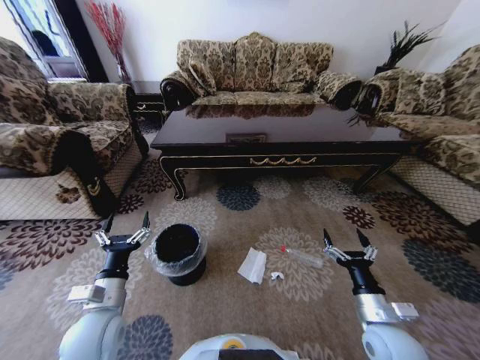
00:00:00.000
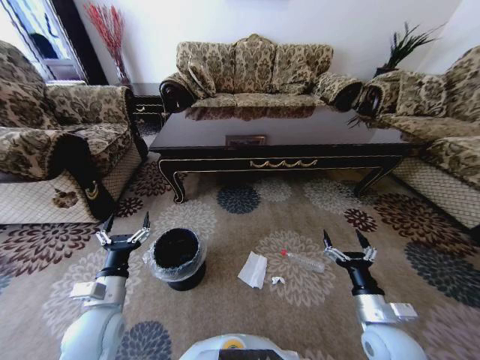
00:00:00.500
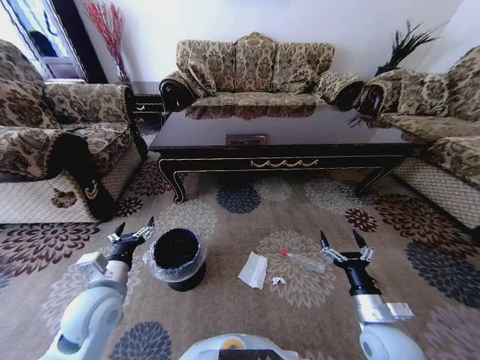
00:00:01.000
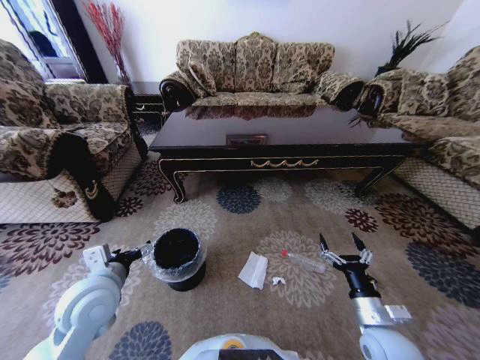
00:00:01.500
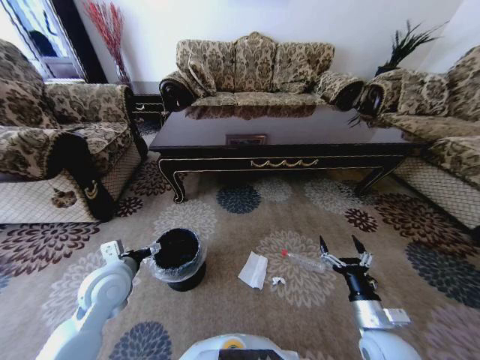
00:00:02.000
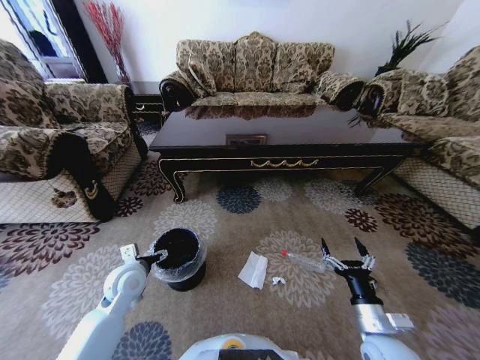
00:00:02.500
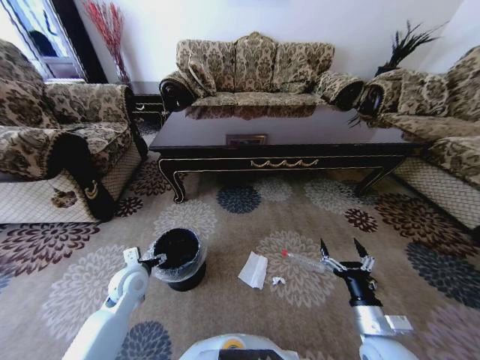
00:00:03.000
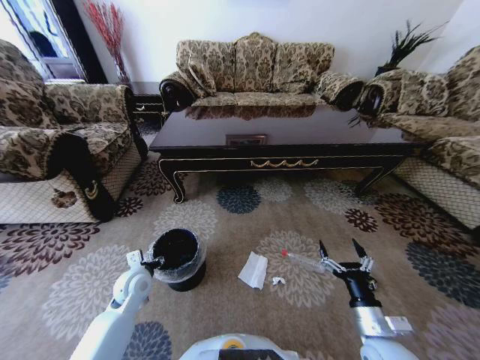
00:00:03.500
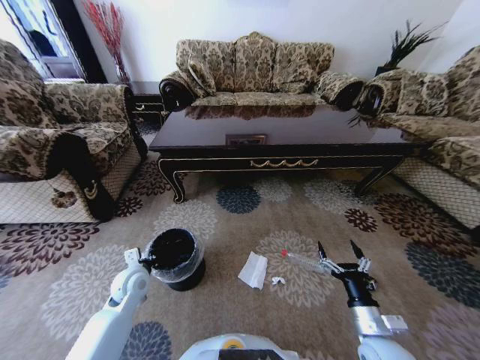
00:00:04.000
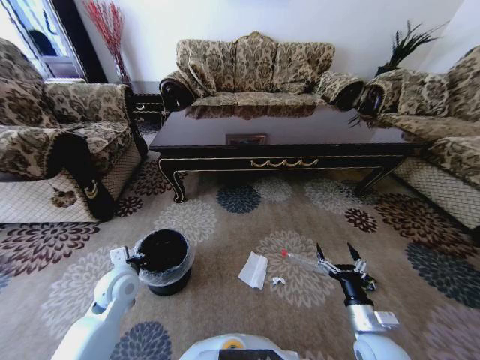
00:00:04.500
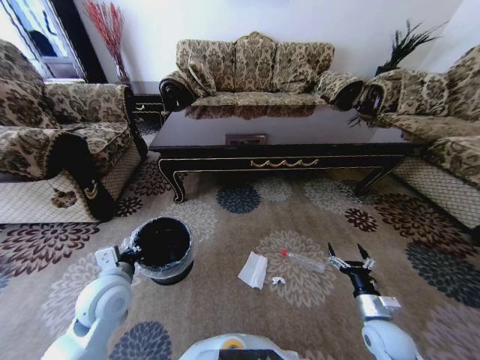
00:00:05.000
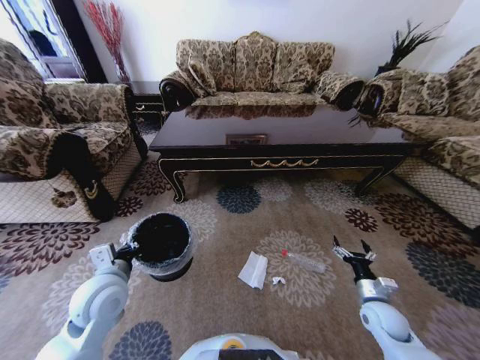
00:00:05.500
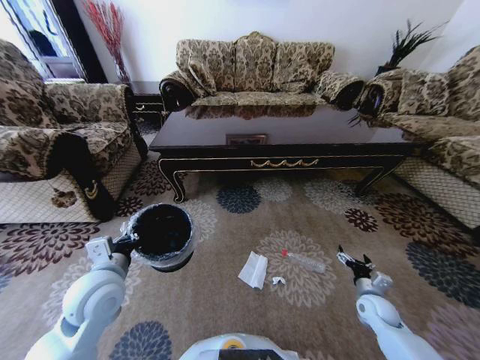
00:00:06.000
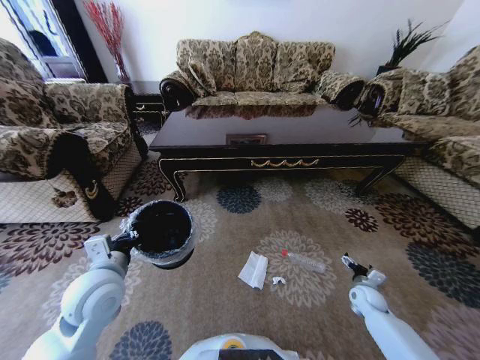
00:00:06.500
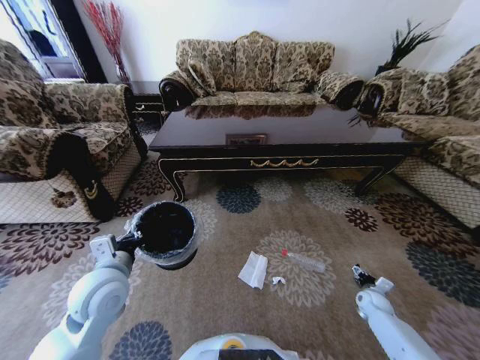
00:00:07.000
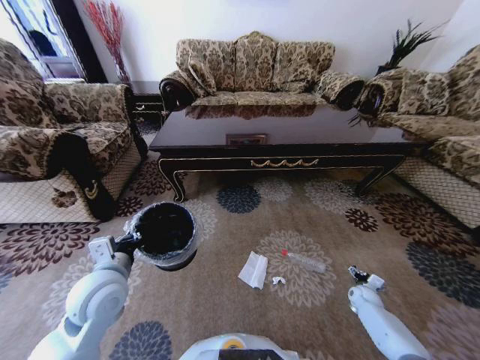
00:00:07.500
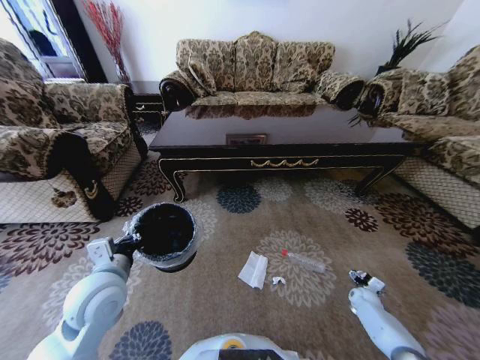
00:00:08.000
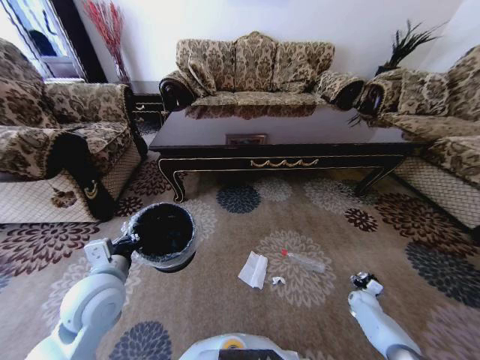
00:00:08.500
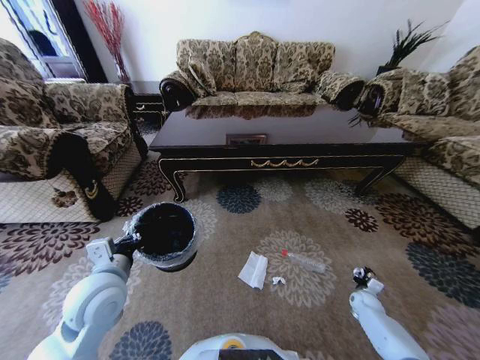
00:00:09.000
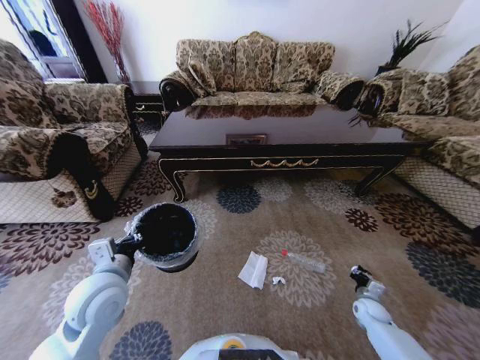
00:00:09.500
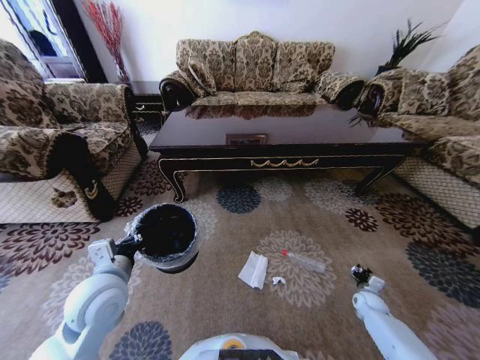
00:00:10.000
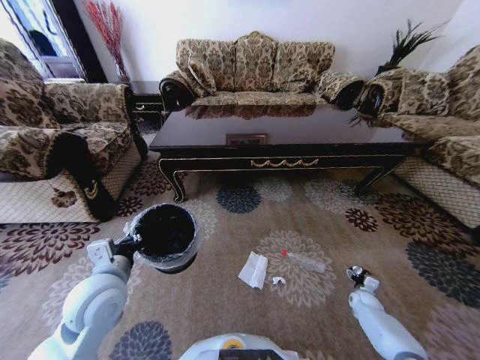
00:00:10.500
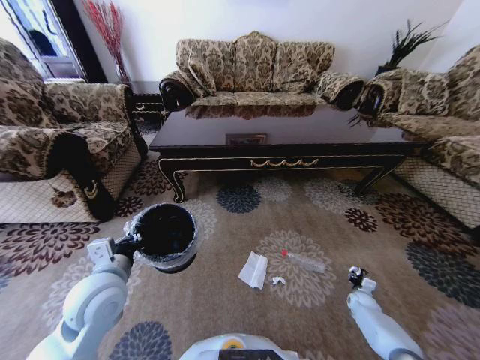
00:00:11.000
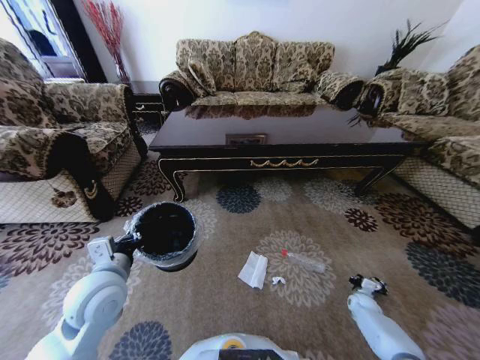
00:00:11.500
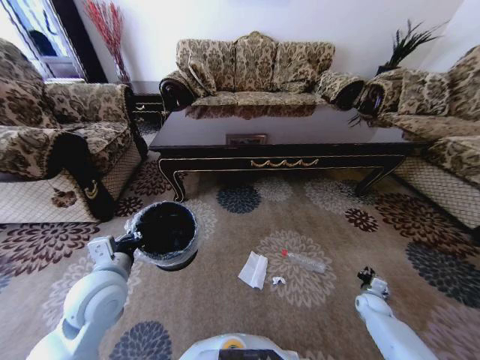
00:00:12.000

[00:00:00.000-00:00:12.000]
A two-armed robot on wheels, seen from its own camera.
Task of the whole recording: Move to the front of the table and pick up the trash from the floor, then place it into the trash bin.
00:00:00.000 to 00:00:02.000: The left gripper is displaced forward by roughly 10 cm.
00:00:02.000 to 00:00:04.000: The left gripper is displaced downward by about 10 cm, and closes.
00:00:04.000 to 00:00:06.000: The right gripper is displaced to the right, forward and downward by approximately 20 cm. Meanwhile the left gripper goes some 15 cm upward and backward.
00:00:06.000 to 00:00:08.000: The right gripper travels downward, to the right and forward by some 15 cm.
00:00:08.000 to 00:00:10.000: The right gripper closes.
00:00:10.000 to 00:00:12.000: The right gripper opens and closes again.

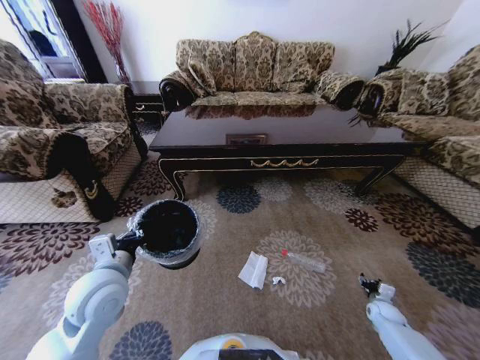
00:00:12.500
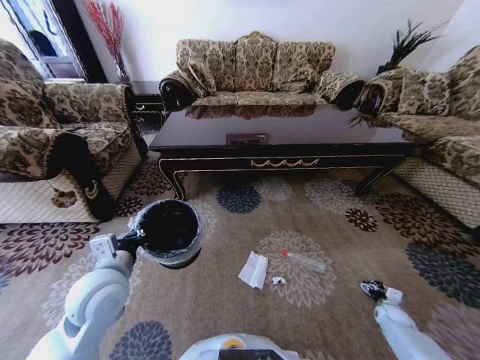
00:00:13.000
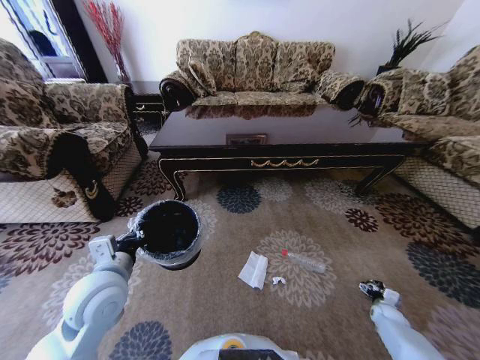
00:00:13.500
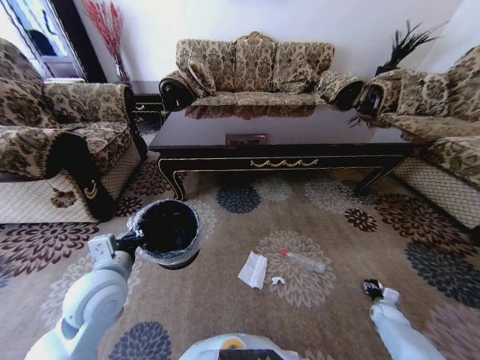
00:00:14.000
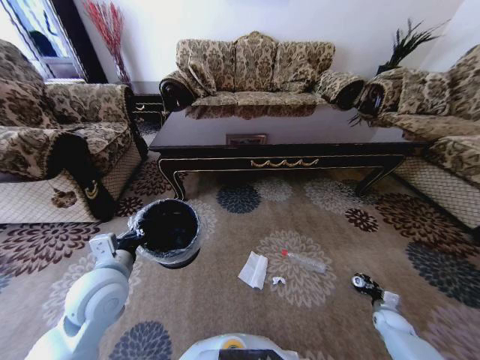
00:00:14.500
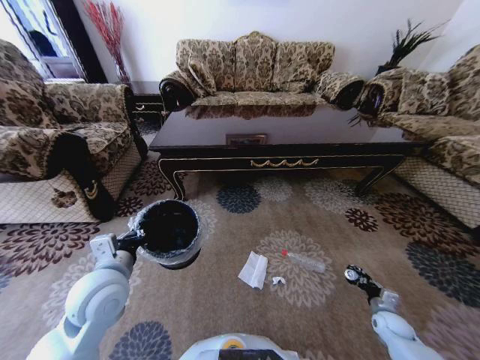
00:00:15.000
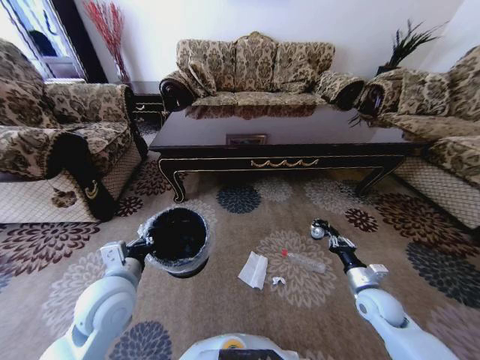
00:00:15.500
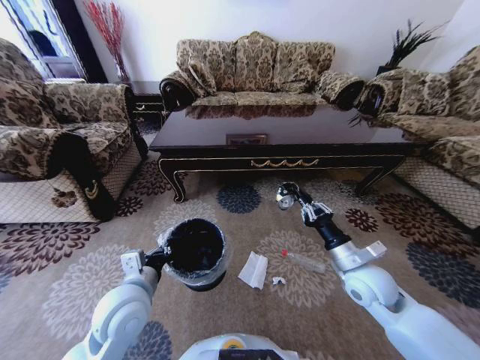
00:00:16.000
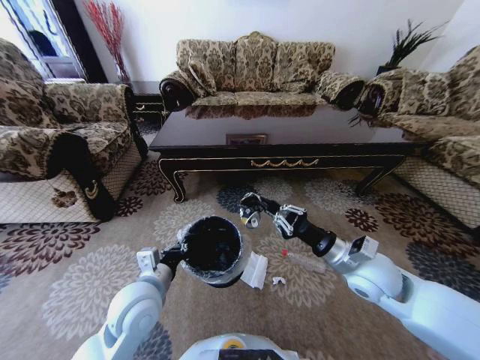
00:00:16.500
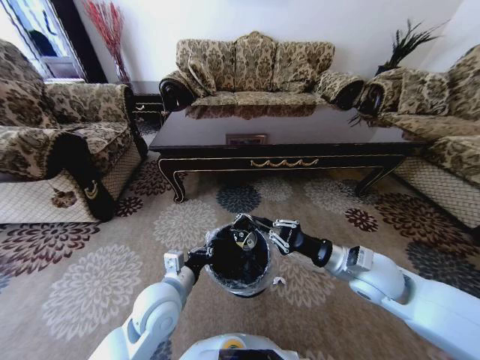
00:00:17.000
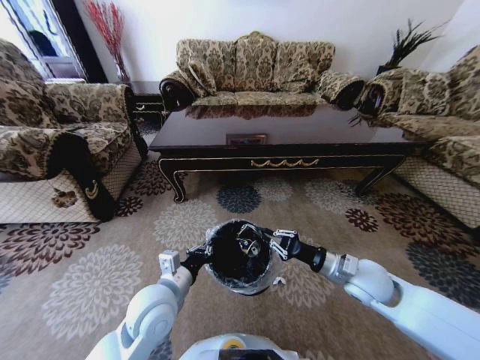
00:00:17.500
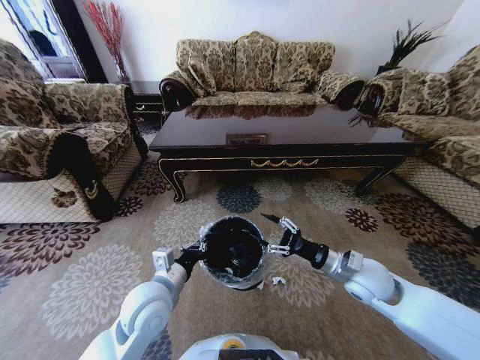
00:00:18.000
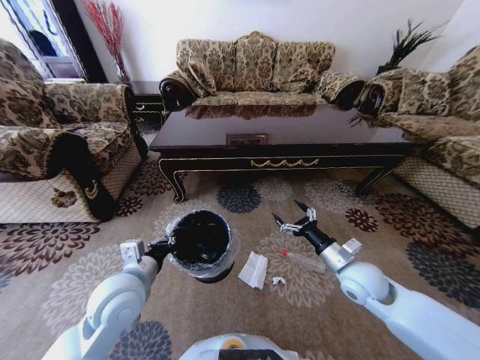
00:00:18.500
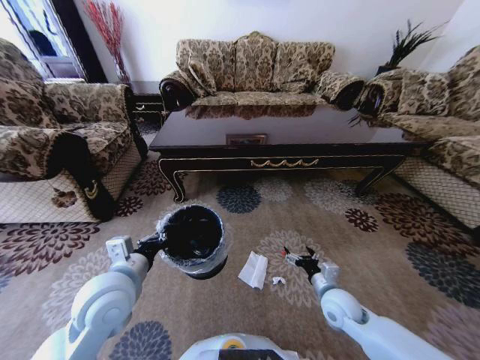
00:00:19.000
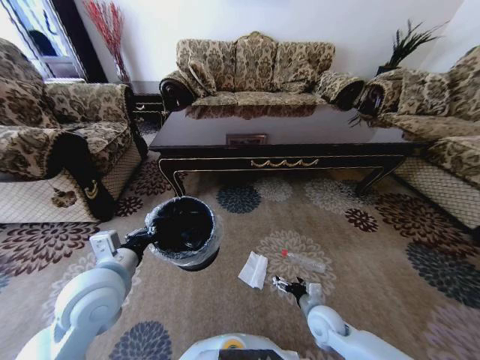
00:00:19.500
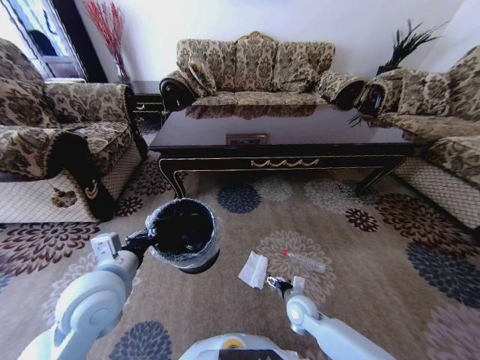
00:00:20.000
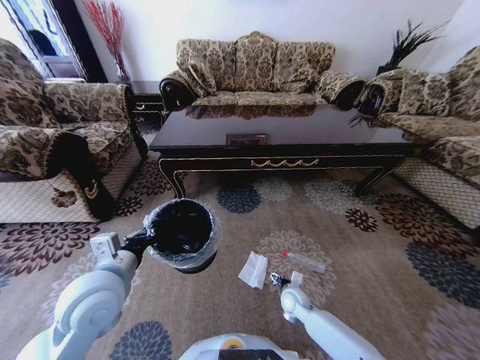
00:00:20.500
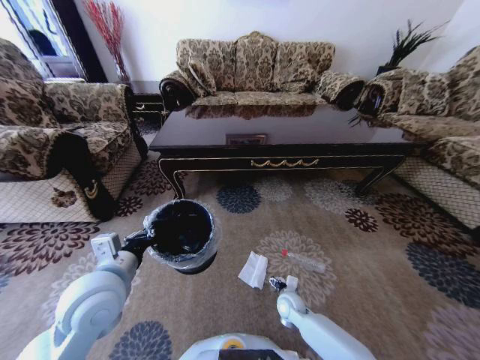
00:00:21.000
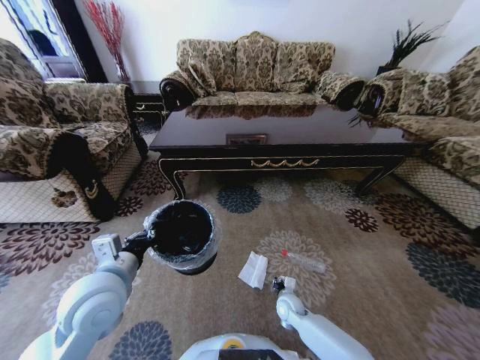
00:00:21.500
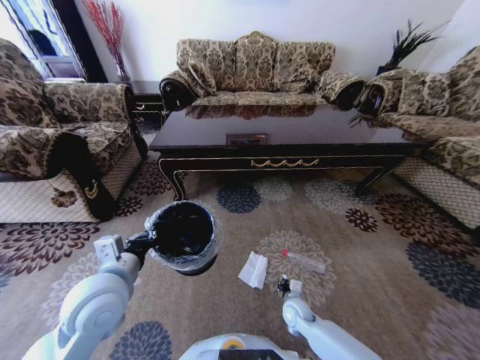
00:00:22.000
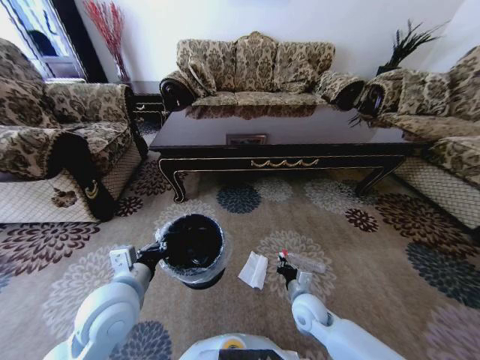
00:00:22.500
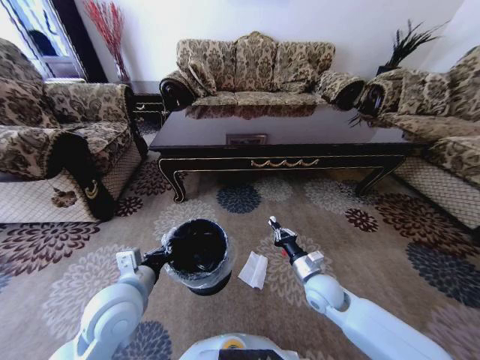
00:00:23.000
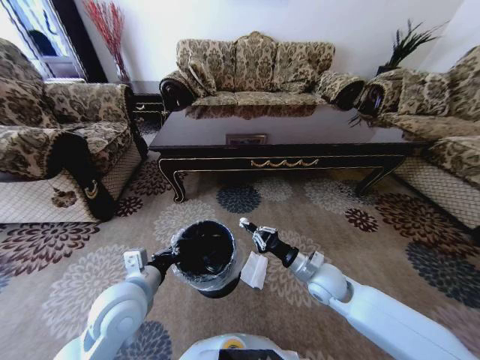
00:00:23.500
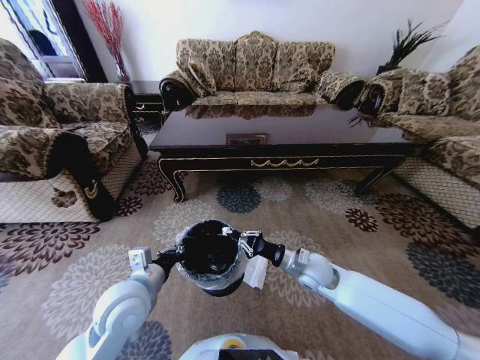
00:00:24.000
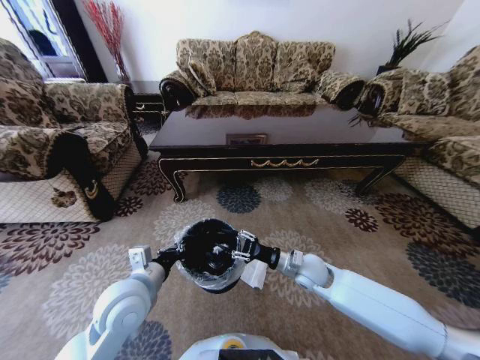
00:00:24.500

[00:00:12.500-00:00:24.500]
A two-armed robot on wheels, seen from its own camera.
Task of the whole recording: Move to the front of the table and pick up the trash from the floor, then place it into the trash bin.
00:00:12.500 to 00:00:14.500: The right gripper closes.
00:00:14.500 to 00:00:16.500: The left gripper travels to the right by roughly 5 cm. The right gripper shifts about 50 cm upward and to the left.
00:00:16.500 to 00:00:18.500: The right gripper is displaced downward by about 5 cm, and opens up.
00:00:18.500 to 00:00:20.500: The right gripper shifts approximately 25 cm downward and to the left.
00:00:20.500 to 00:00:22.500: The right gripper travels upward by roughly 5 cm, and closes.
00:00:22.500 to 00:00:24.500: The right gripper heads upward and forward, covering some 15 cm, and opens its fingers.

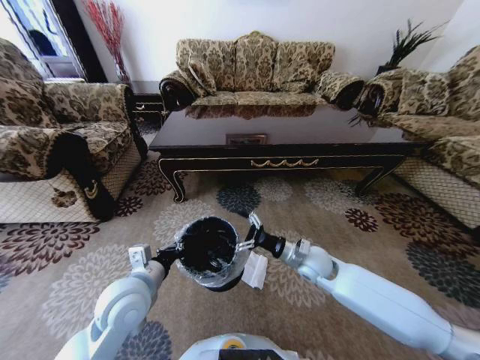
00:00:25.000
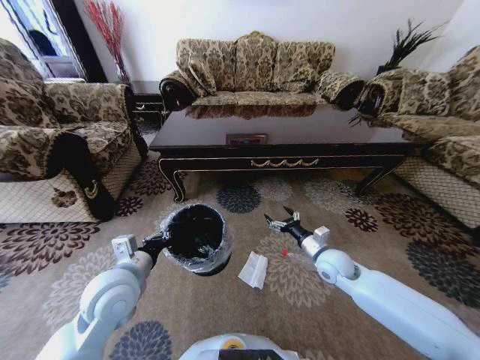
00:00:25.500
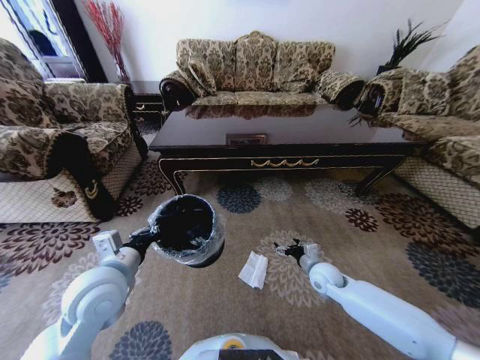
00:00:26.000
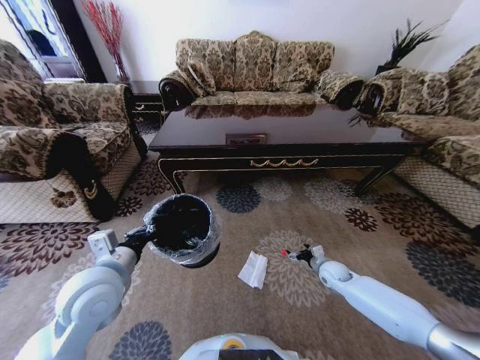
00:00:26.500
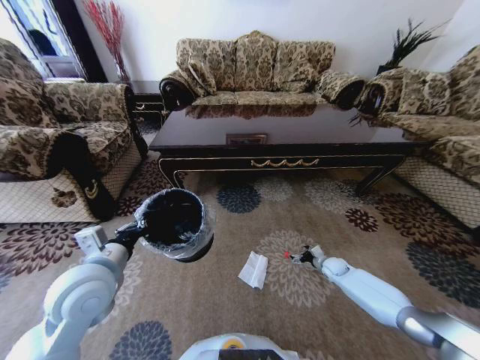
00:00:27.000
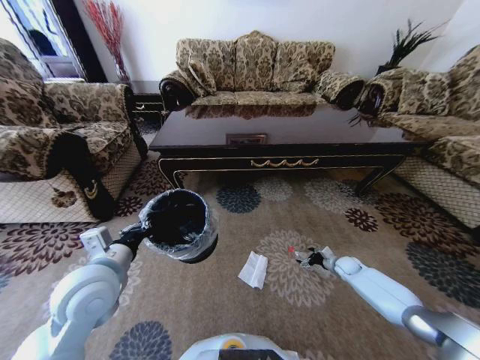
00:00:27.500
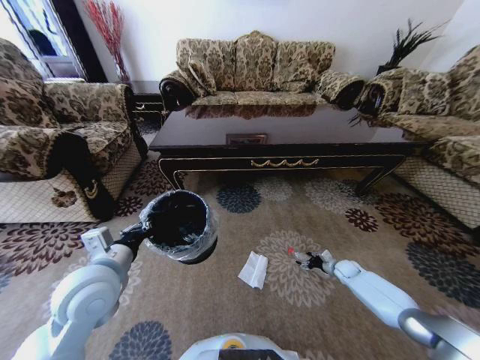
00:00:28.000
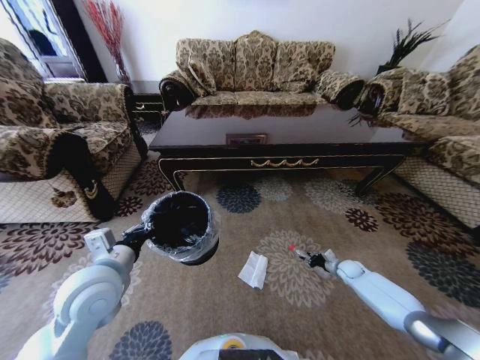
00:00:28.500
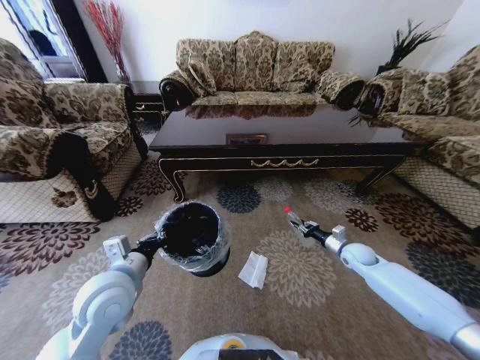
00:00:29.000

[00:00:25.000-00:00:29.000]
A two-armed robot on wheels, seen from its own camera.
Task of the whole recording: Move to the front of the table and pick up the trash from the floor, then place it into the trash bin.
00:00:25.000 to 00:00:27.000: The left gripper moves upward and to the left, approximately 5 cm. The right gripper heads downward and to the right, covering some 30 cm.
00:00:27.000 to 00:00:29.000: The right gripper moves upward, some 10 cm, and closes up.
